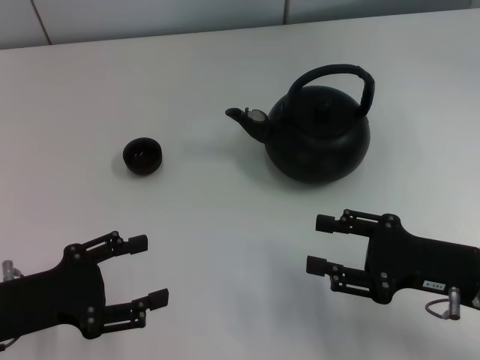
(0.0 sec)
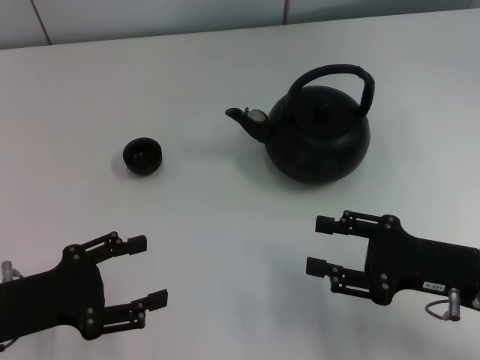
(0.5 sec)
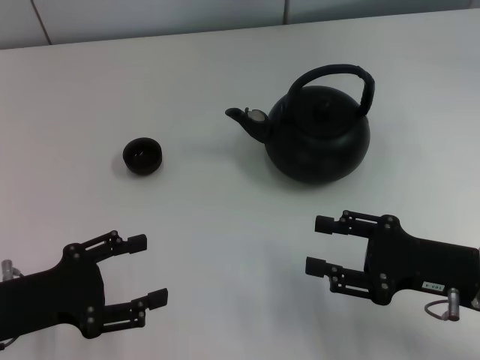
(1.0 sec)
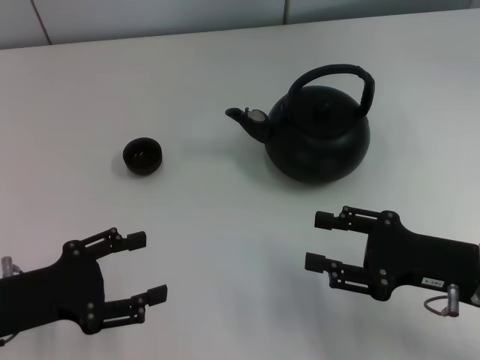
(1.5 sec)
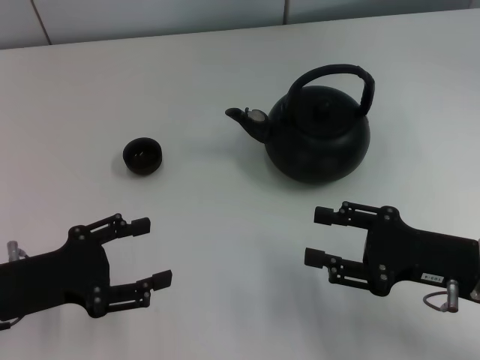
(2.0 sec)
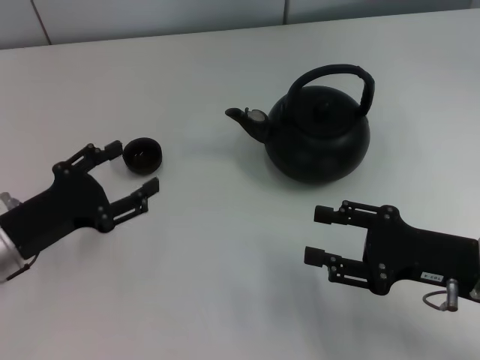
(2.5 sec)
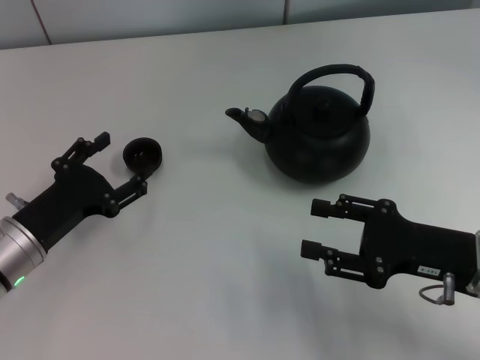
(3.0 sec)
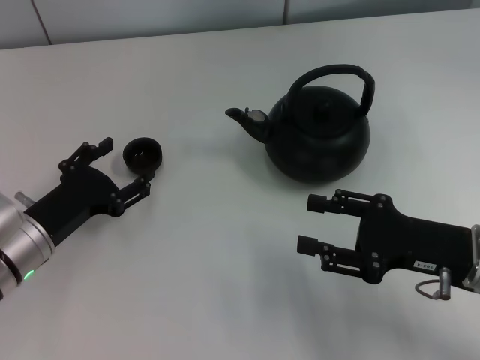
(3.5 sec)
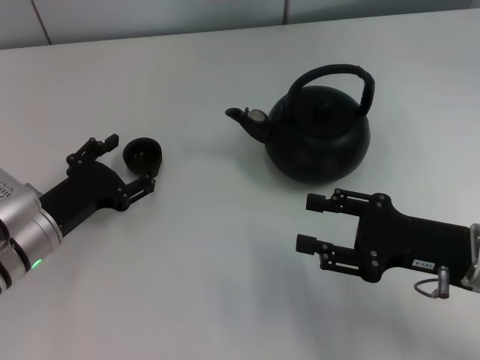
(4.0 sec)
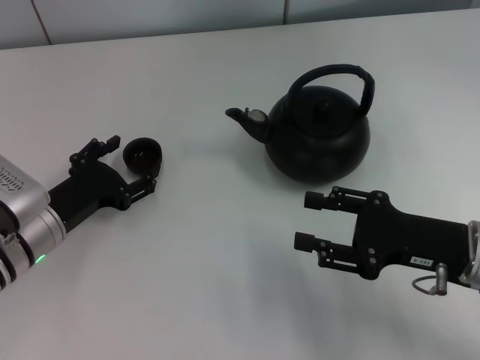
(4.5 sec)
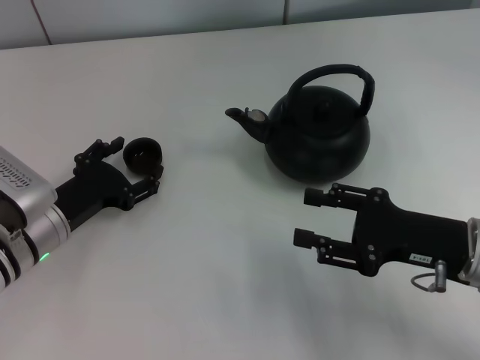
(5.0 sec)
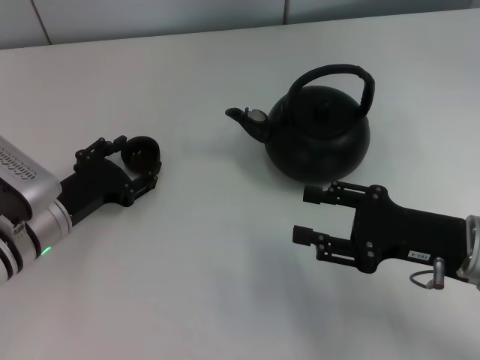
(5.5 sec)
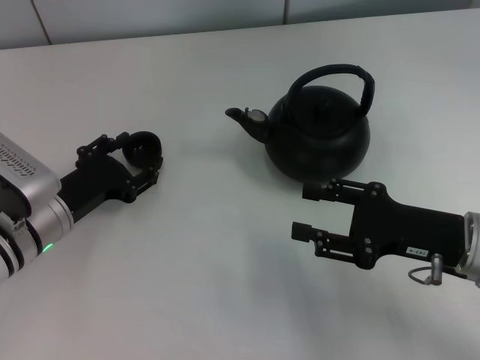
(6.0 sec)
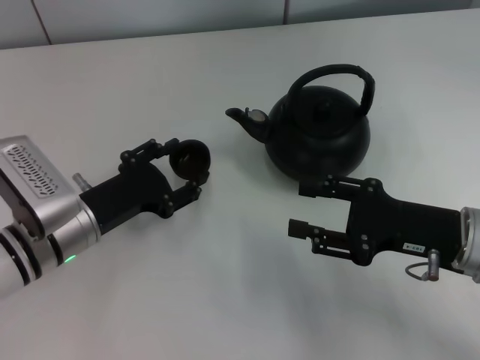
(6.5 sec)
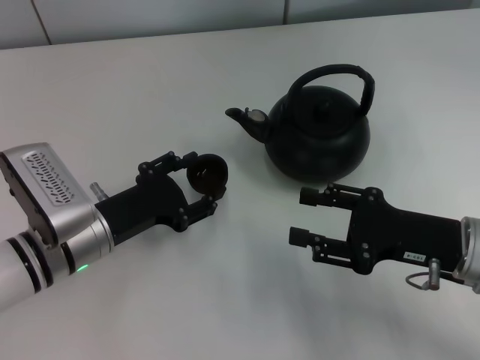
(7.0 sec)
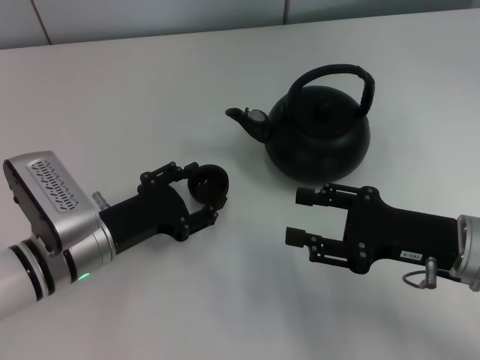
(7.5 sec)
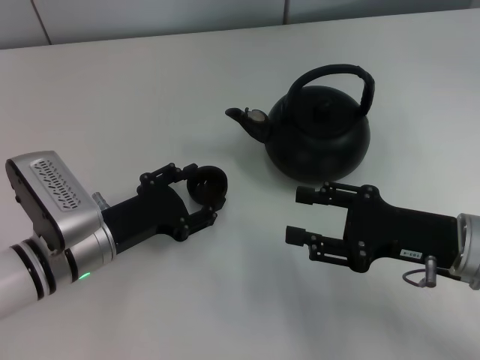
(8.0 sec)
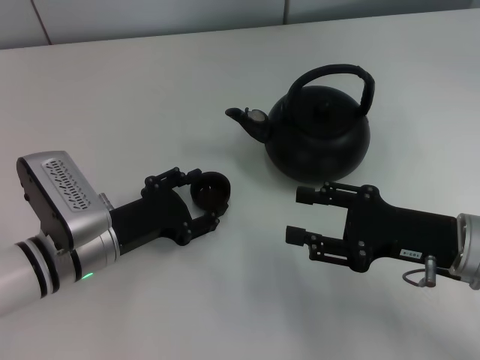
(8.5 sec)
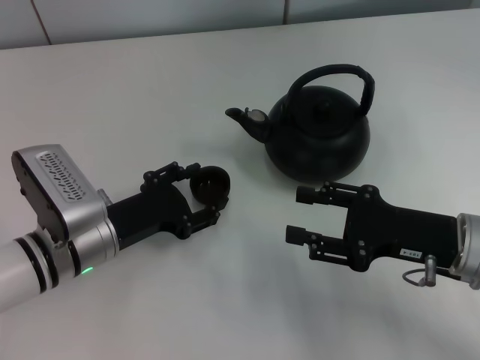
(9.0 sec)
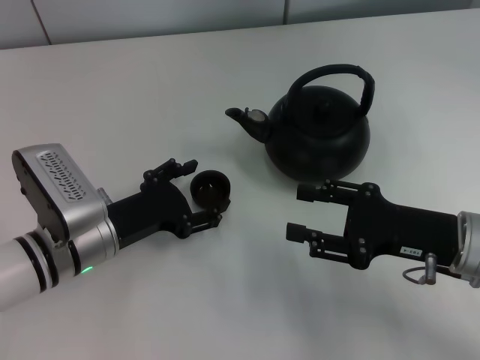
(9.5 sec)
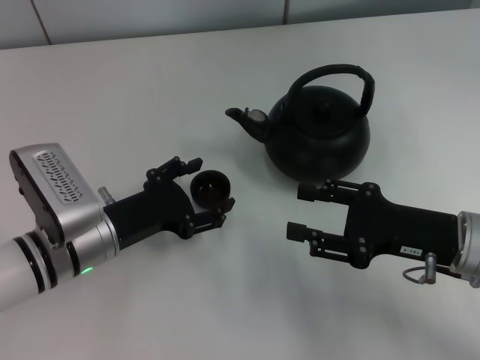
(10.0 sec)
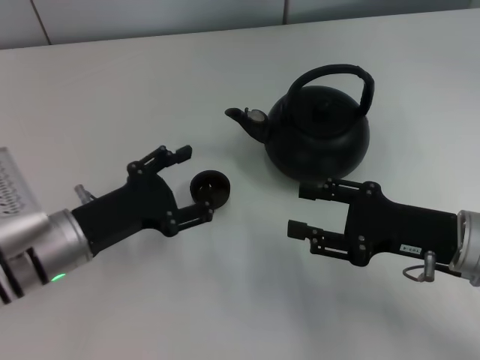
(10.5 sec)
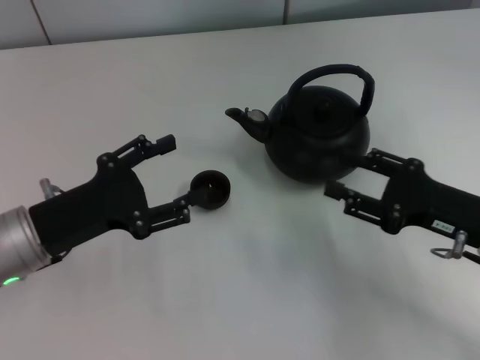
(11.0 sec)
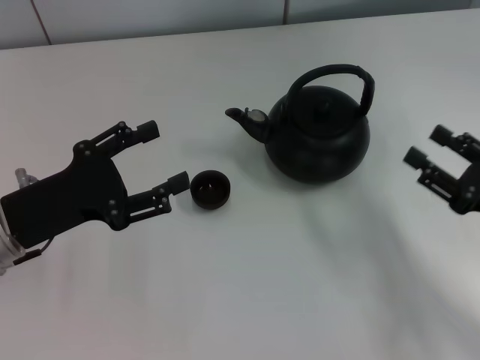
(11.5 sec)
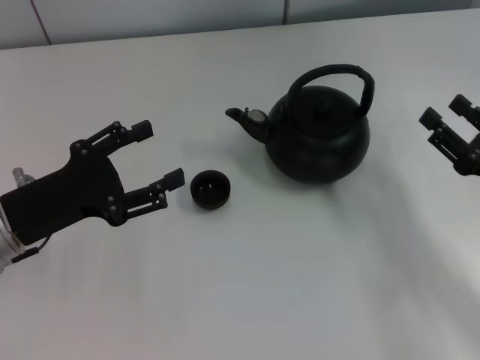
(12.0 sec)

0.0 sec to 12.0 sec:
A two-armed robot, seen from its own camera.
Task of the whole recording: Grasp the handle of the teapot with one hand and pour tea into the teacup.
Step, 0.0 sec to 6.5 sec: Pick up the teacup with the left gripper.
Step, 7.0 sec to 9.5 sec: Place the teacup in the center of view with the left gripper.
0.0 sec to 2.0 sec: The grippers make only small movements.
2.0 sec to 4.0 sec: The left gripper travels forward by roughly 5 cm.
4.0 sec to 6.0 sec: The left gripper closes its fingers.
6.0 sec to 8.0 sec: The grippers stay close to where they were, moving slightly.
8.0 sec to 10.0 sec: The left gripper opens.
10.0 sec to 12.0 sec: The left gripper shifts about 10 cm to the left and upward. The right gripper moves to the right, some 10 cm.

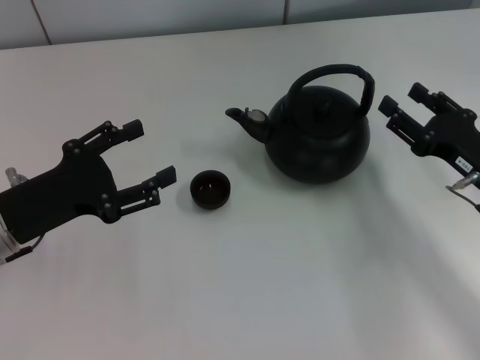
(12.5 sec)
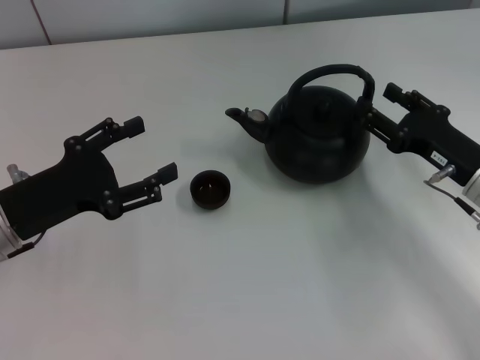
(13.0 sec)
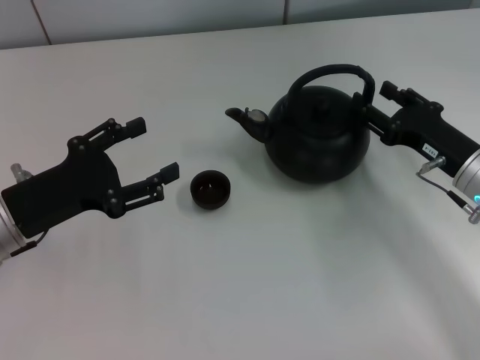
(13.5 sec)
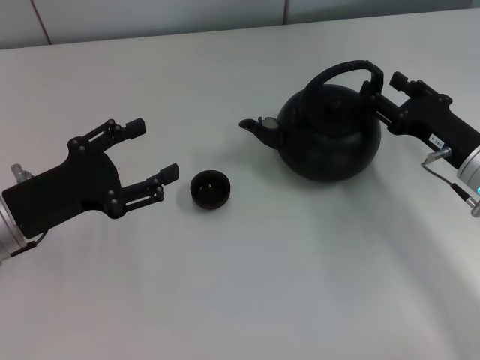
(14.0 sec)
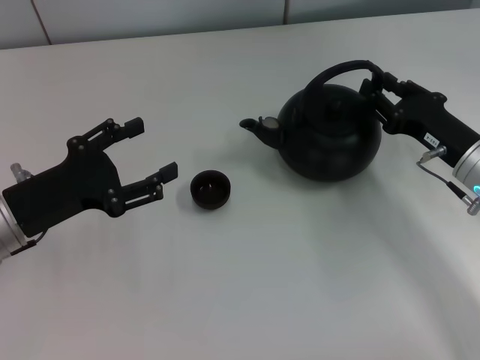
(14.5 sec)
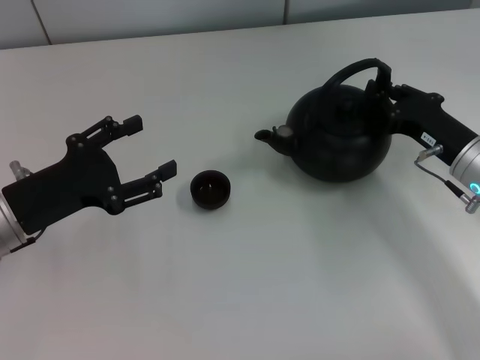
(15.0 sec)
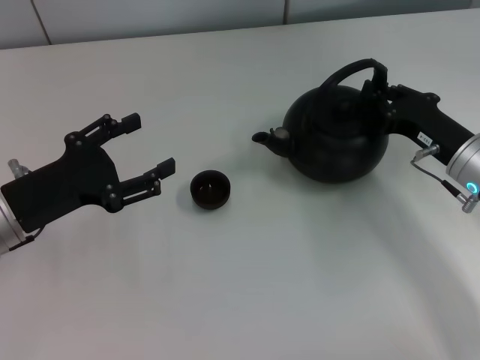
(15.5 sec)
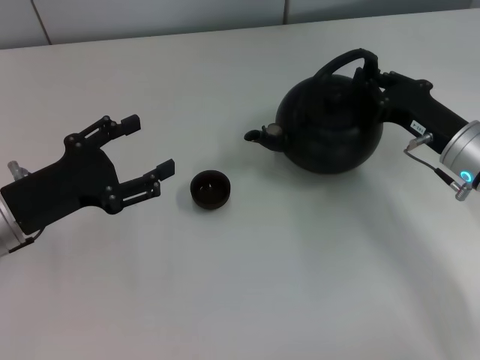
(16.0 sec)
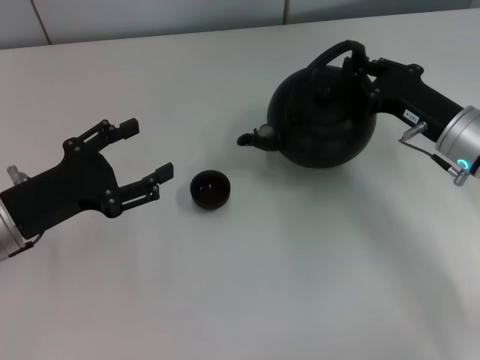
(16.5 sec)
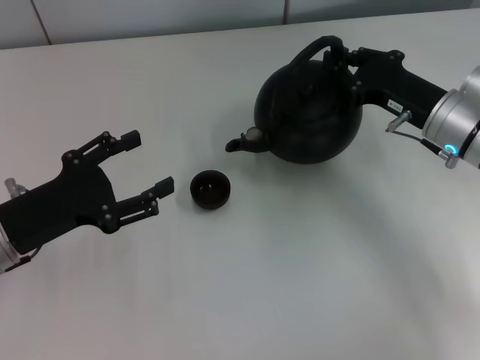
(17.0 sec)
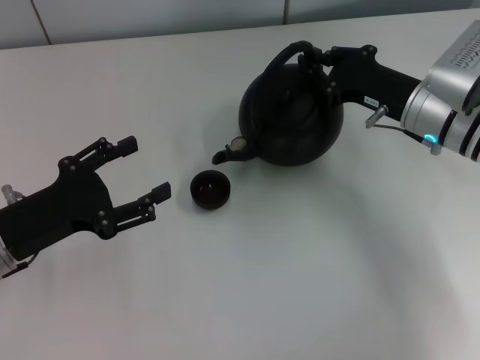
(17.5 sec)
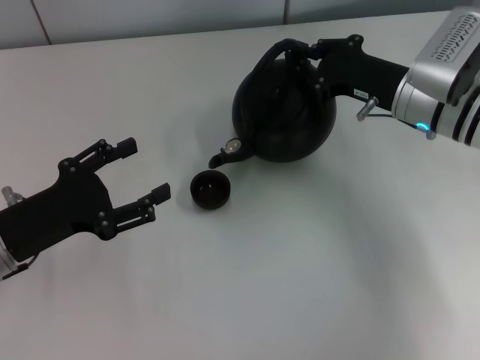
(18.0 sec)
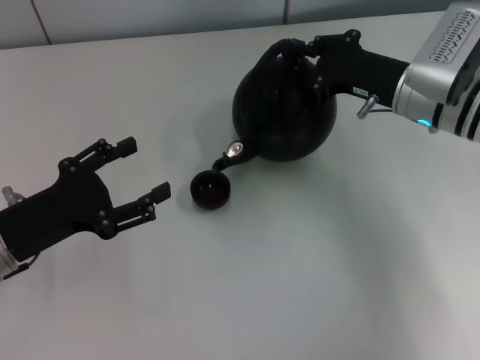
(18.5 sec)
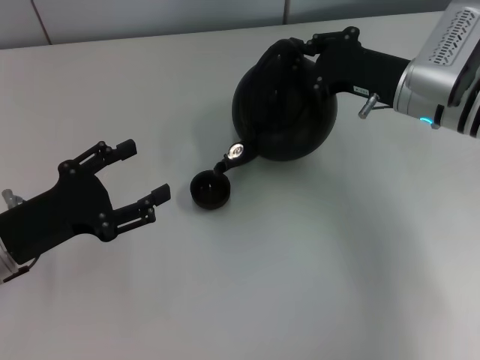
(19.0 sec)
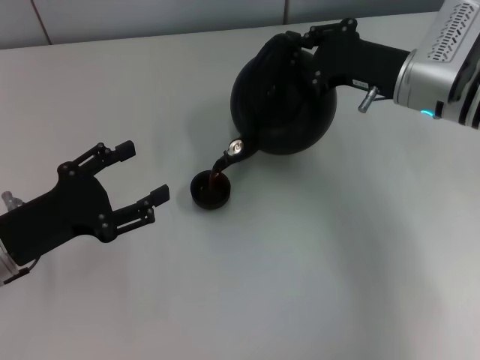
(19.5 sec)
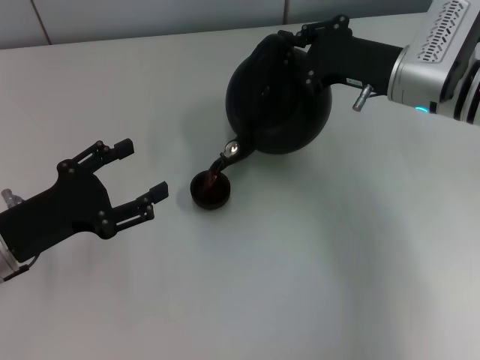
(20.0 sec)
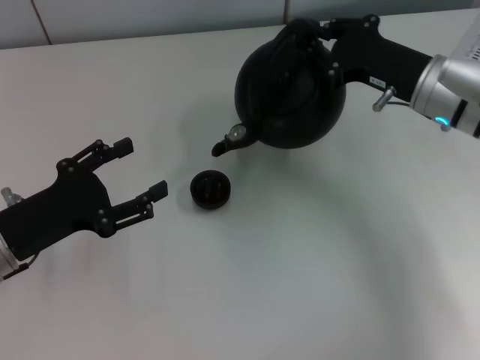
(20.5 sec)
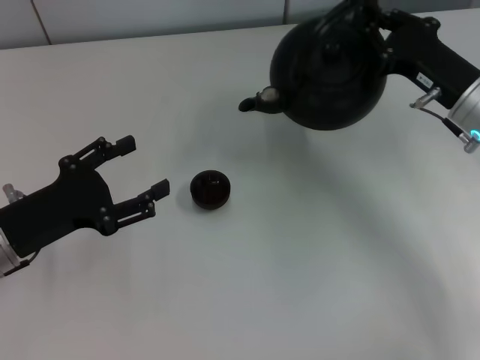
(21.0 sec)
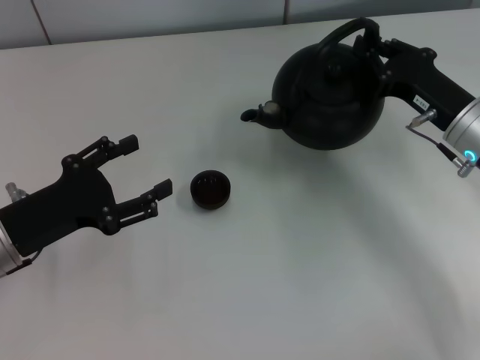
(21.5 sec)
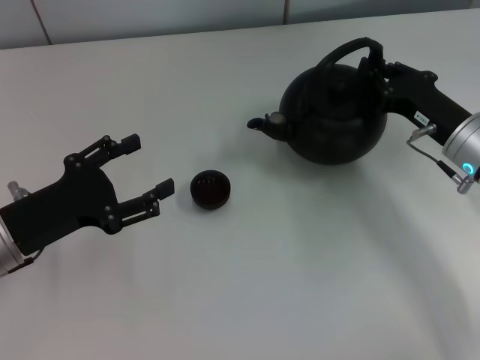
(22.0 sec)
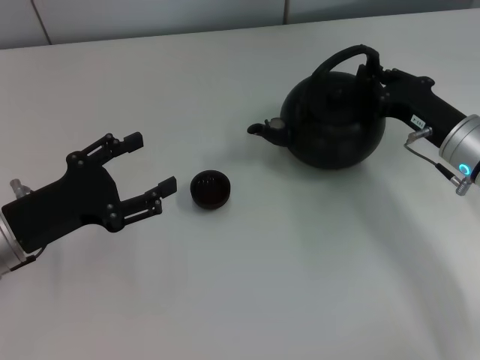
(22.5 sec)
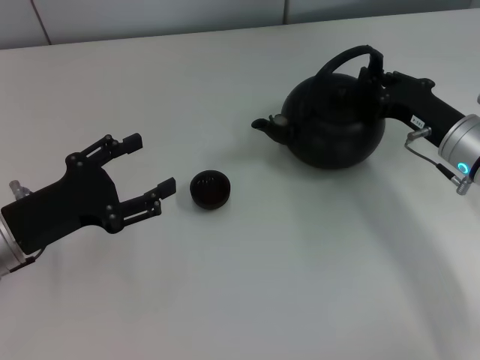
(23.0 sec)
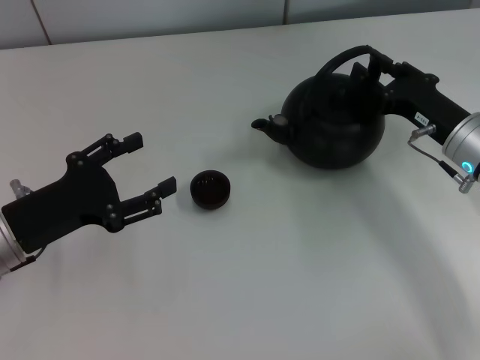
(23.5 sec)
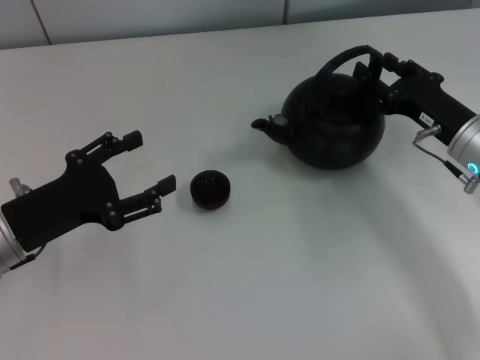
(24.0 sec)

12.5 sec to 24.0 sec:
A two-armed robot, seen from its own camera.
Task of the whole recording: Grasp the handle of the teapot with one hand and pour tea into the teacup.
Step, 12.5 sec to 16.0 sec: Pick up the teapot with the right gripper.
12.5 sec to 14.5 sec: The grippers make only small movements.
14.5 sec to 16.5 sec: The right gripper closes.
16.5 sec to 18.5 sec: The right gripper moves some 5 cm.
18.5 sec to 20.0 sec: The grippers move only a little.
20.0 sec to 22.0 sec: The right gripper shifts approximately 10 cm downward, backward and to the right.
22.0 sec to 24.0 sec: The right gripper opens up.

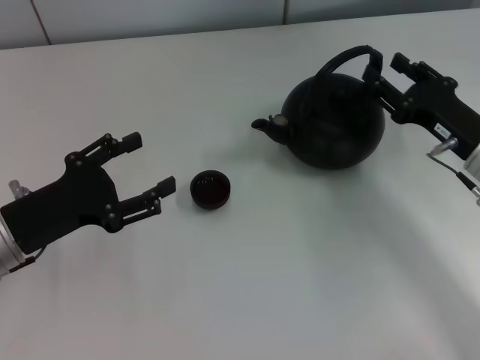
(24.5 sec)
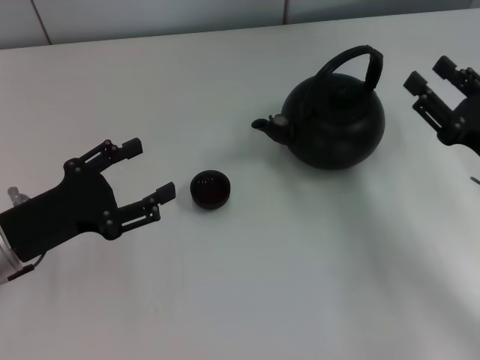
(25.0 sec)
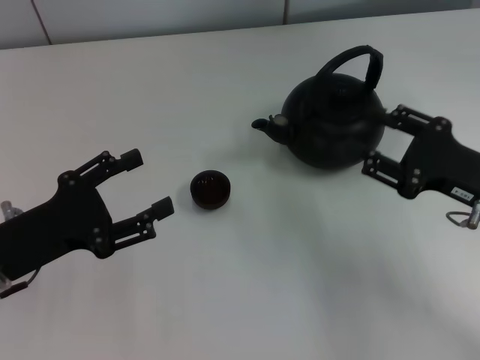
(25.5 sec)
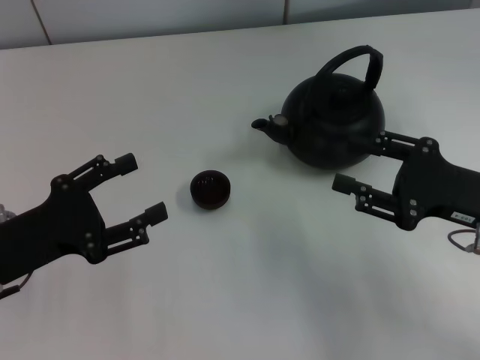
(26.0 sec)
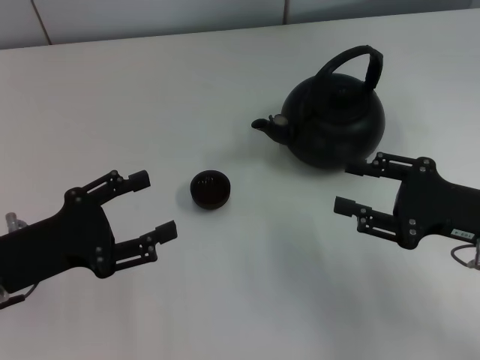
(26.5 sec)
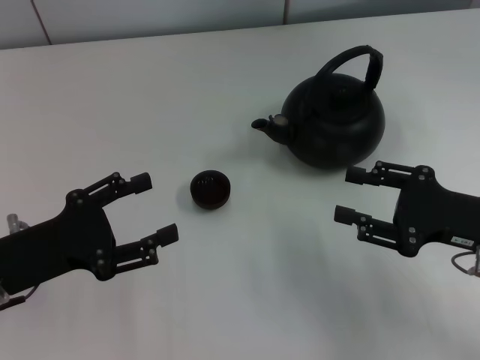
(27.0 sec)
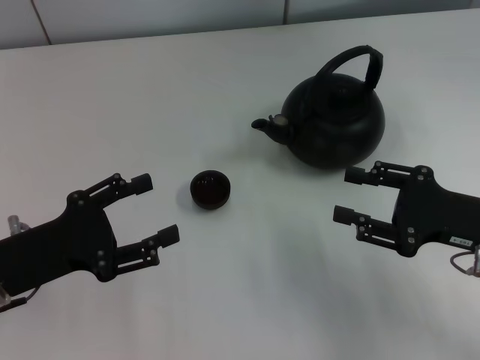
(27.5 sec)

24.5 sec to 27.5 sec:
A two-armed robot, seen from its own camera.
Task of the whole recording: Grasp the handle of the teapot with one hand and pour tea into the teacup.
24.5 sec to 26.0 sec: The right gripper goes about 5 cm backward.
26.0 sec to 27.5 sec: The grippers stay close to where they were, moving slightly.
